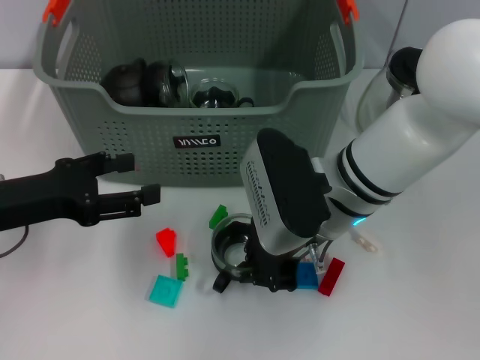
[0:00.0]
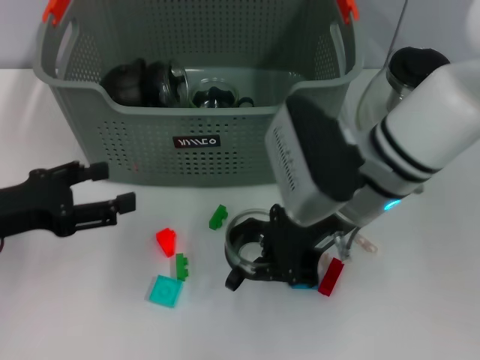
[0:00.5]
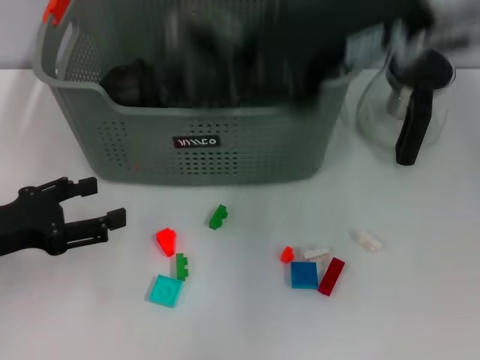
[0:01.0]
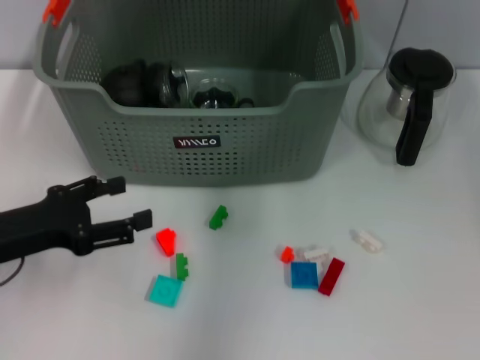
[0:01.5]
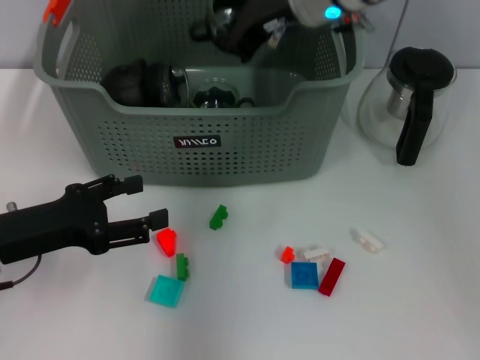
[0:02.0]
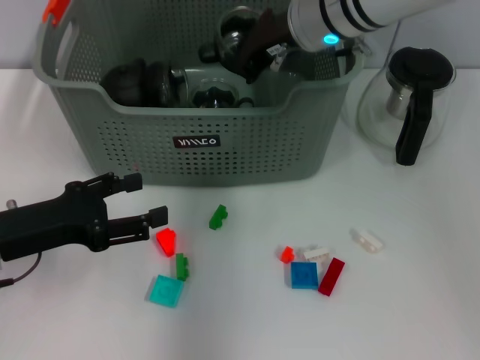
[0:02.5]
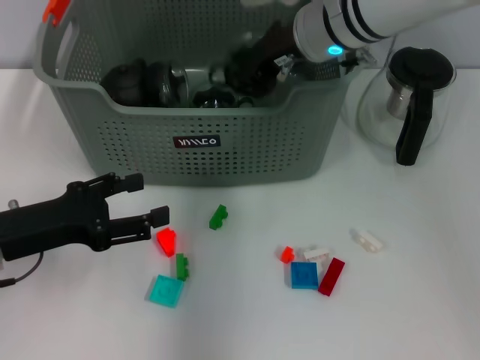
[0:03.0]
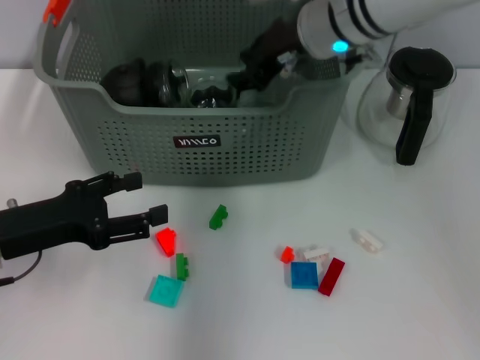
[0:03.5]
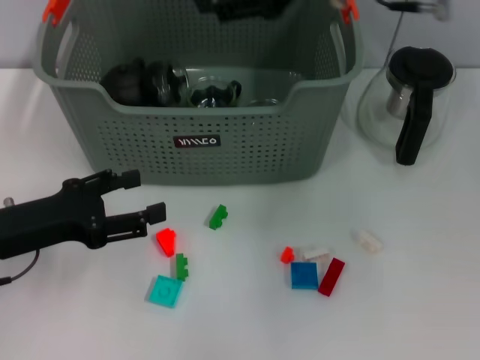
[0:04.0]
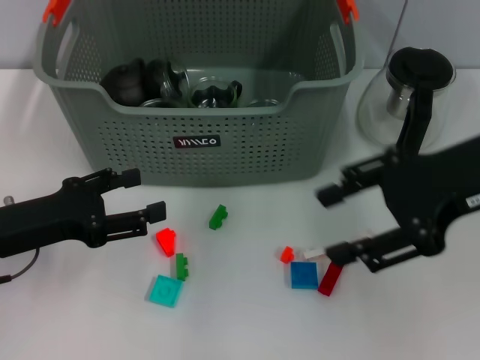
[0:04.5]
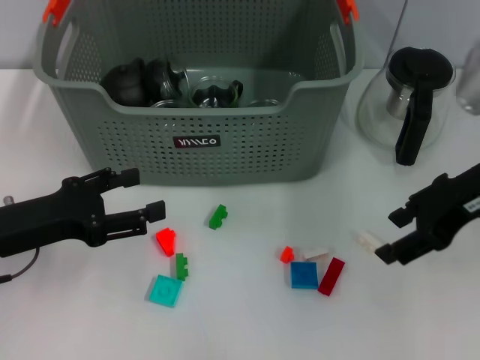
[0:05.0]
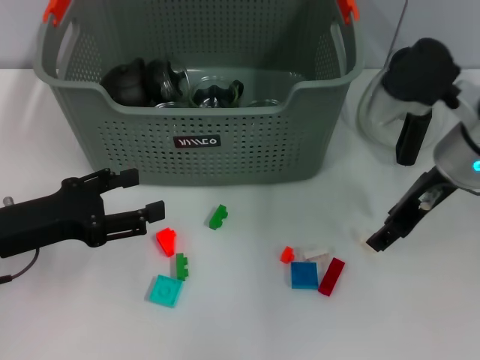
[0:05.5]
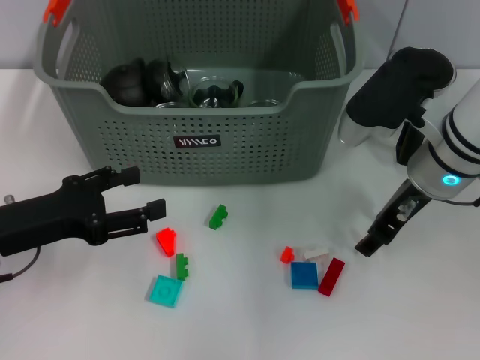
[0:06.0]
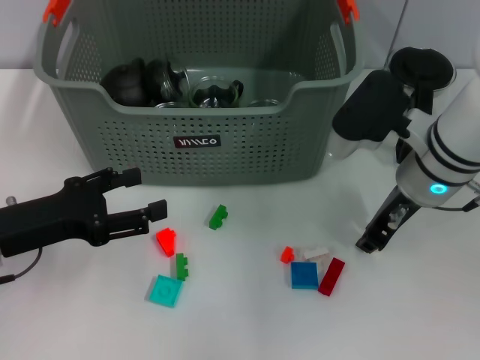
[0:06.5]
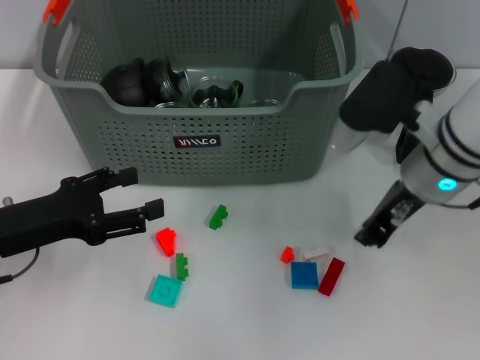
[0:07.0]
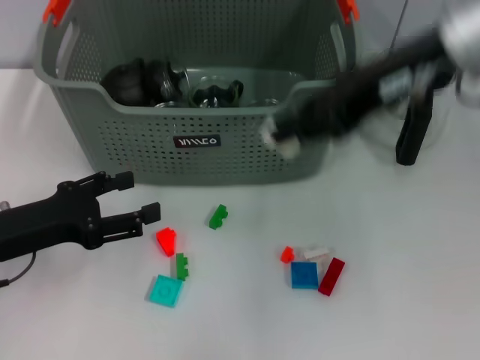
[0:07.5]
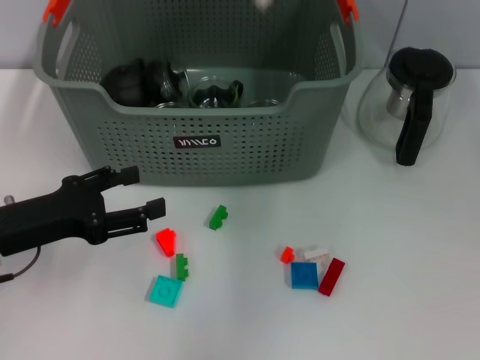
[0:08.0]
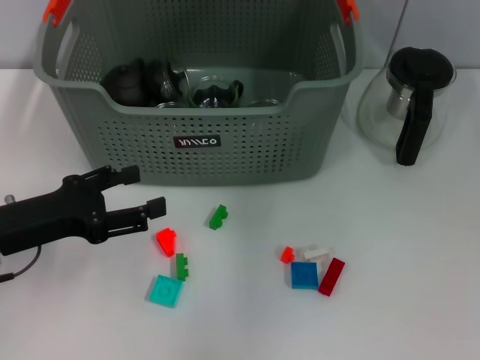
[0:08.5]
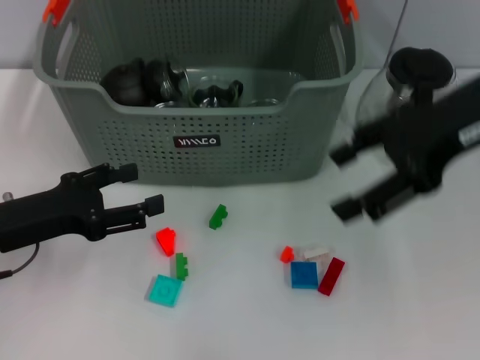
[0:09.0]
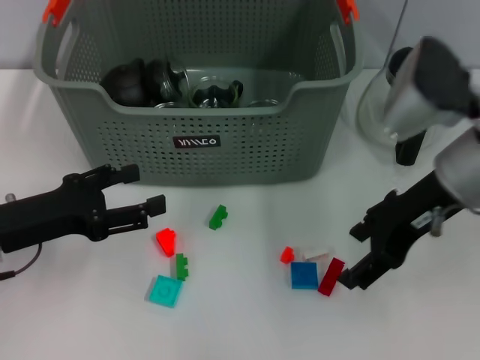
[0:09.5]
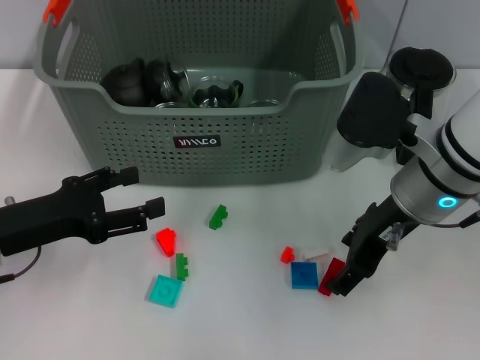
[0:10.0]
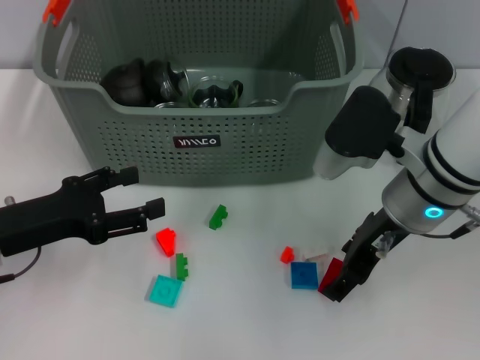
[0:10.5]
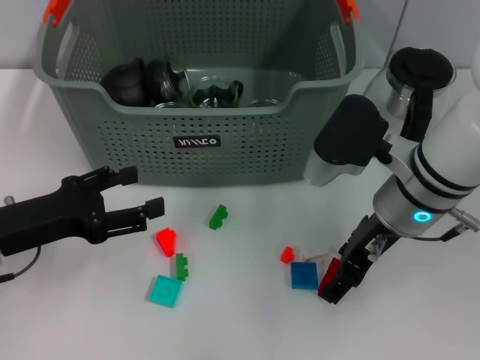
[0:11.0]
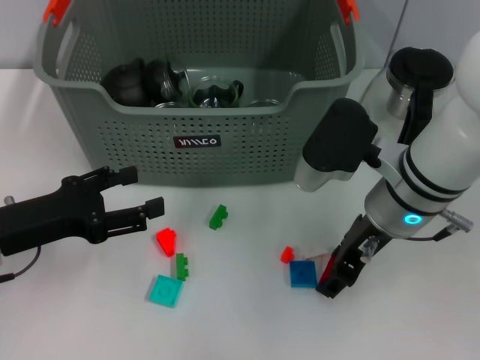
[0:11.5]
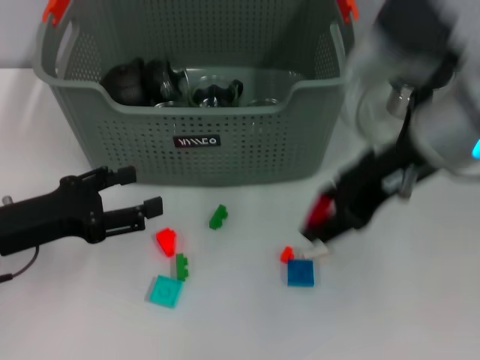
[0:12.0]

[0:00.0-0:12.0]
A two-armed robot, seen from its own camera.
Task of the whole recording: pick up the teacup on the table and place it into the storage bin, pick up the block on the table and place it into the storage bin.
Step, 0:00.0 to 0:03.5: Place the cup in the storage box with right gripper.
Step, 0:04.0 to 0:06.0: Grasp the white block with right gripper.
Step, 0:07.0 to 0:08.5: Place the white block in the storage box with right gripper.
Step, 0:09.0 to 0:11.5: Grasp the red block with right gripper.
0:00.0 to 0:02.0: The right gripper heads forward and upward, covering about 15 cm.
0:02.0 to 0:04.0: The right gripper shifts some 10 cm backward, to the right and upward, and opens its fingers.
0:04.0 to 0:06.0: The right gripper heads downward, covering some 15 cm.
0:06.0 to 0:08.0: The right gripper is displaced upward by approximately 20 cm, and closes.
0:08.0 to 0:10.0: The right gripper heads downward and backward, covering roughly 20 cm, and opens up.
0:10.0 to 0:12.0: The right gripper heads upward, covering roughly 10 cm.

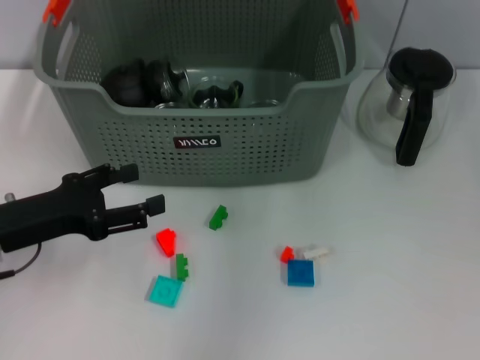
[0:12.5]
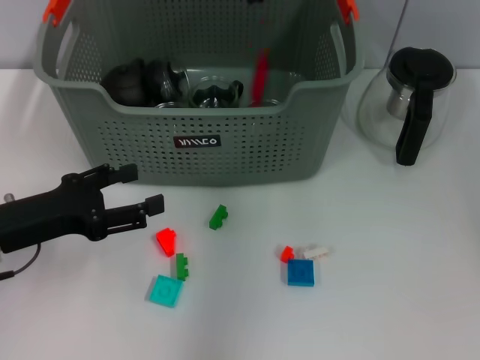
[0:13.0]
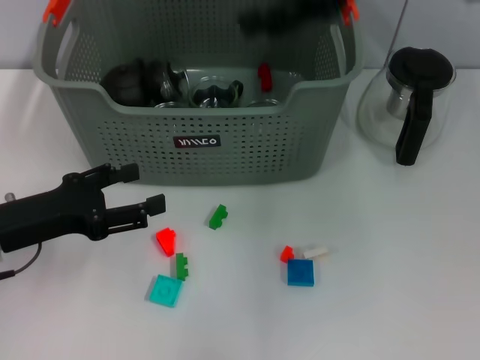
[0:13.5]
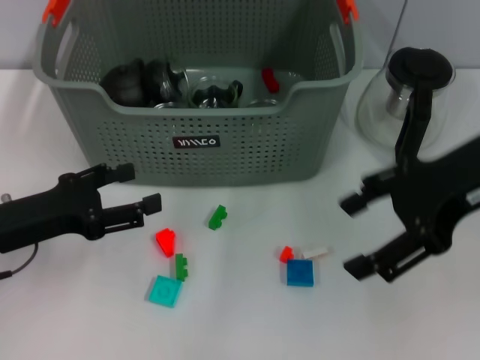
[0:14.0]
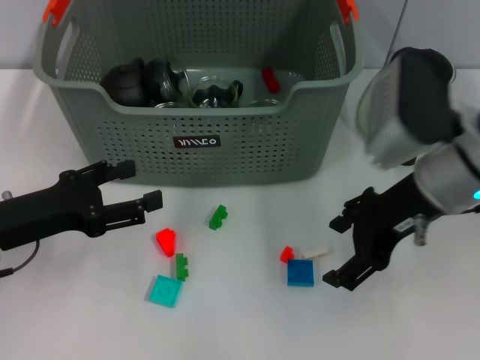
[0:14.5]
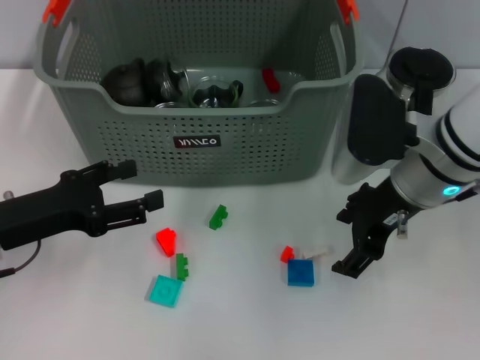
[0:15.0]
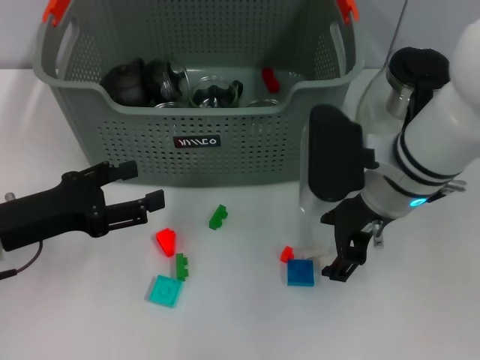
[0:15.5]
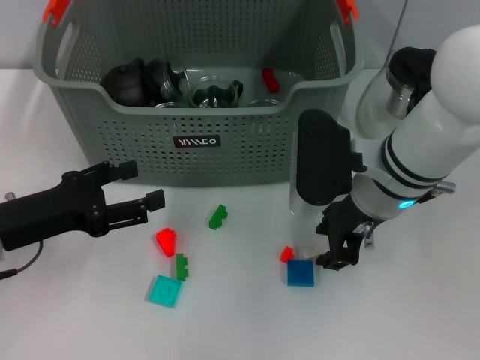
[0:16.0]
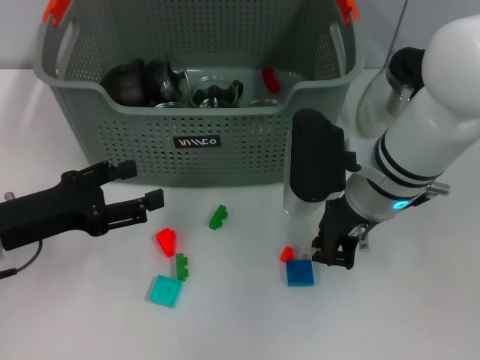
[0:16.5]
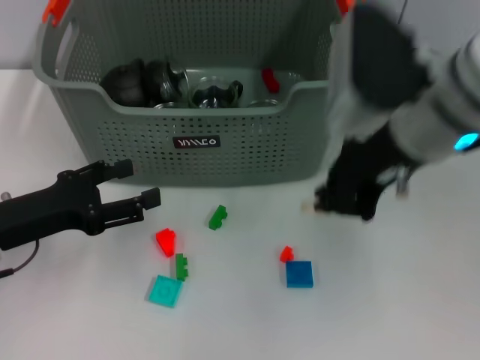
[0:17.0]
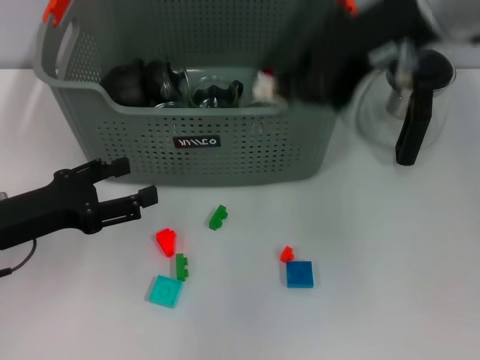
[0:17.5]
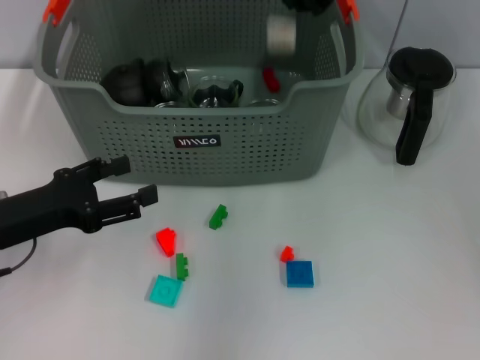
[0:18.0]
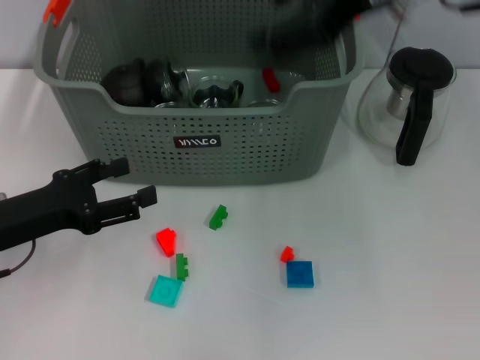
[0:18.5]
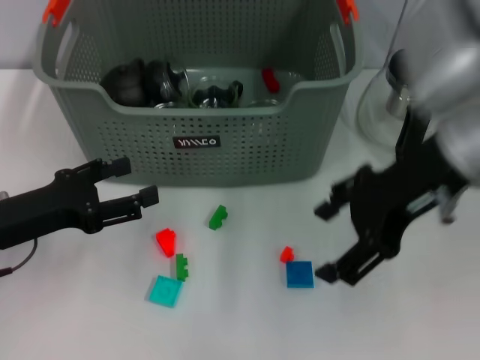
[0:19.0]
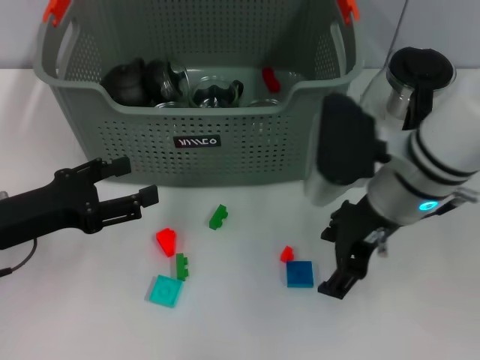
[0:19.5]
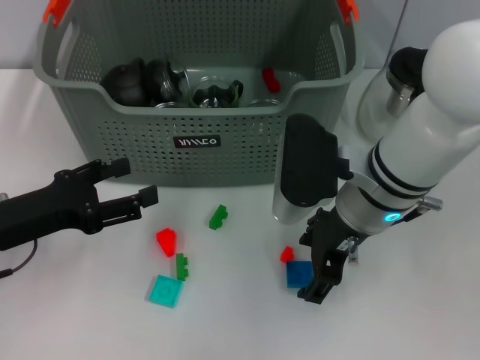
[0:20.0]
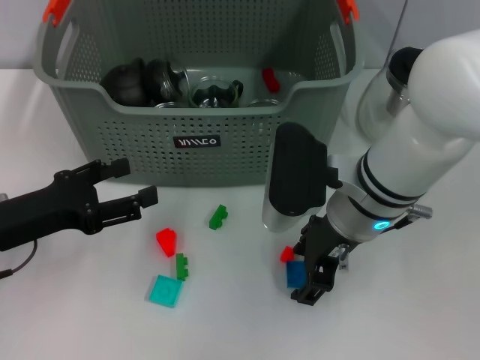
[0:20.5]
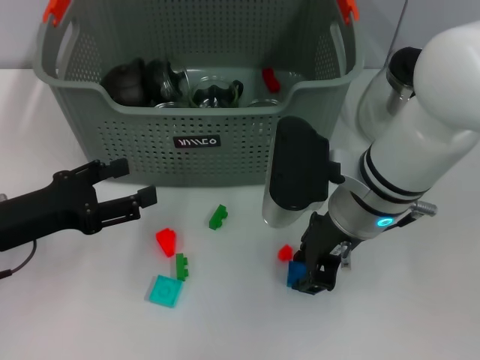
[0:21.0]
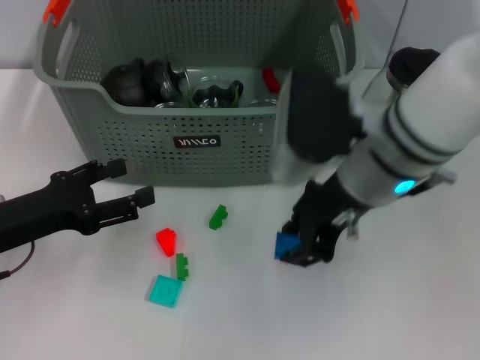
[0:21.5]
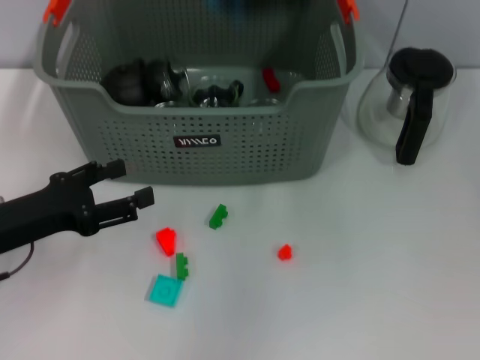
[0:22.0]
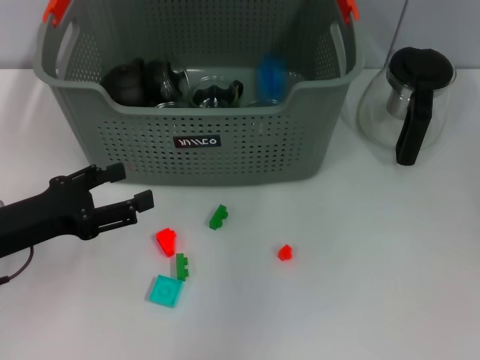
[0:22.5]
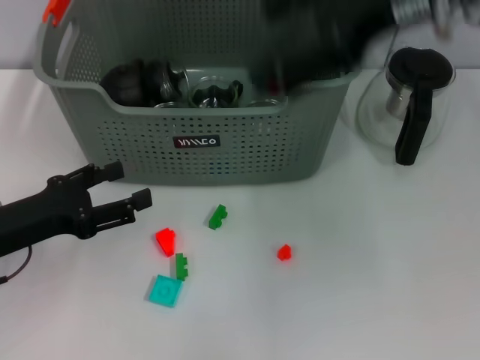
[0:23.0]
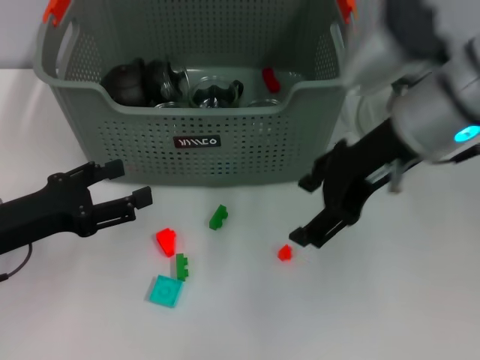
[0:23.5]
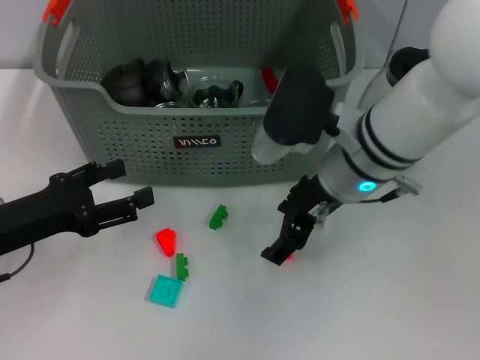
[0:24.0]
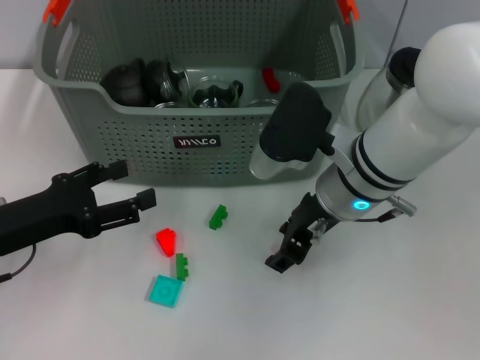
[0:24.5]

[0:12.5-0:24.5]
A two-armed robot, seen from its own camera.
Task of the whole recording: pick up the teacup on the table and place it into the storage bin, pick up the block on the table and place it into the storage bin.
Step, 0:13.5 to 0:16.5: Grasp the white block with right gripper.
Step, 0:17.0 to 0:18.5: Place the white block in the storage box with right gripper.
Step, 0:19.0 to 0:20.5: Grasp the dark blue block with right gripper.
Step, 0:21.0 to 0:22.5: Place the dark blue block in the storage box with right gripper.
0:12.5 to 0:14.5: The right gripper heads downward, covering approximately 20 cm.
0:14.5 to 0:16.5: The right gripper shifts about 10 cm to the left and downward, and closes its fingers.
0:16.5 to 0:18.5: The right gripper heads upward, covering about 20 cm.
0:18.5 to 0:20.5: The right gripper shifts roughly 20 cm downward.
0:20.5 to 0:22.5: The right gripper shifts roughly 20 cm upward, and closes.
0:22.5 to 0:24.5: The right gripper moves downward, roughly 20 cm.

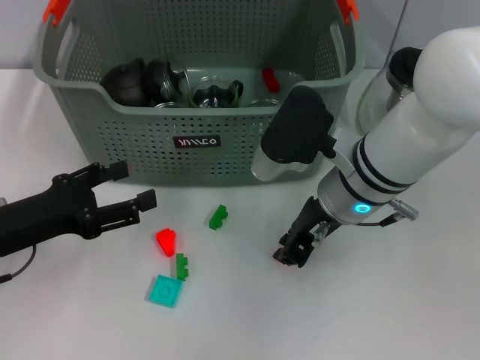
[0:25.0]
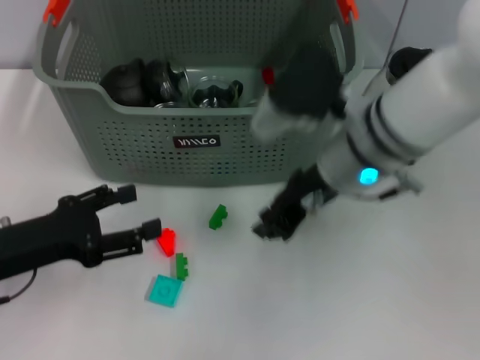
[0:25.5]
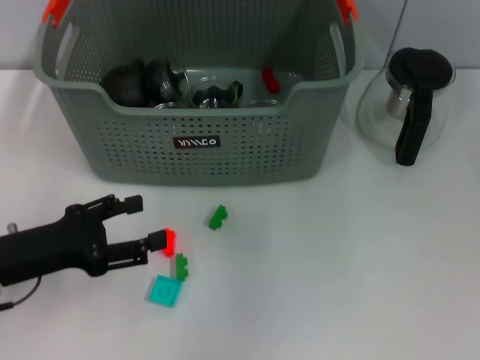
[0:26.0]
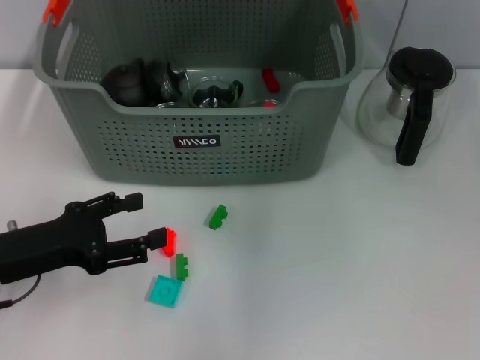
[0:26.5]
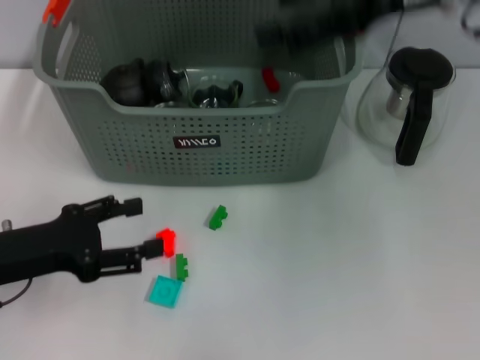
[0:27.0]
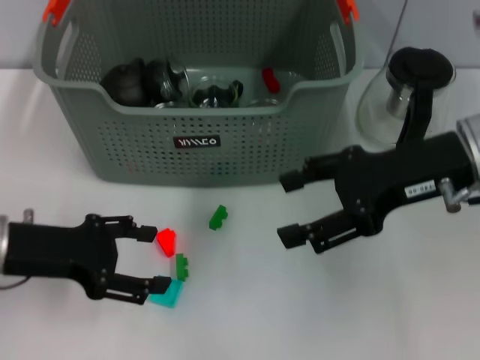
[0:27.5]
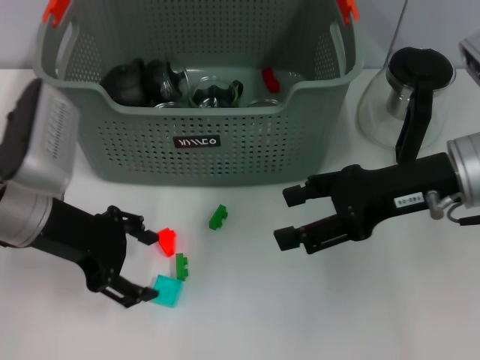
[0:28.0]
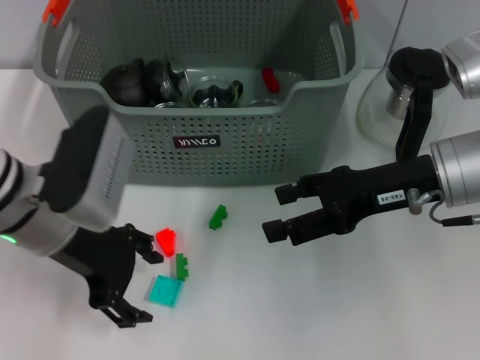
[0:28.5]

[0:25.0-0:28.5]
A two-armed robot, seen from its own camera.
Task of the whole recording: pick up the teacup on the table and place it into the storage bin, pick up the block on the table and place it into the storage bin.
Step, 0:25.5 to 0:26.5: Place the orange block in the storage box with right gripper.
0:25.0 to 0:27.0: The right gripper travels upward and to the right by about 20 cm, and opens its fingers.
0:27.0 to 0:28.5: The right gripper is displaced downward by approximately 15 cm, while the left gripper goes some 10 cm to the right, forward and upward.
